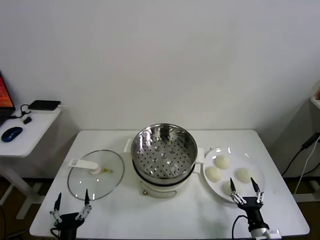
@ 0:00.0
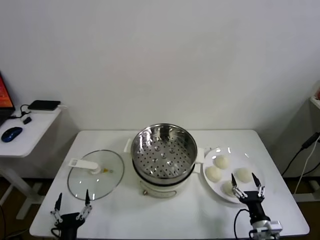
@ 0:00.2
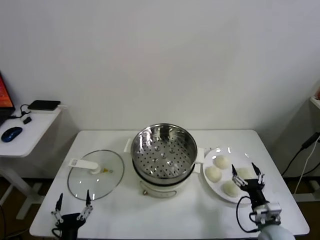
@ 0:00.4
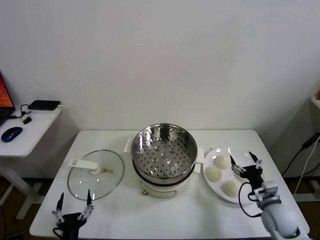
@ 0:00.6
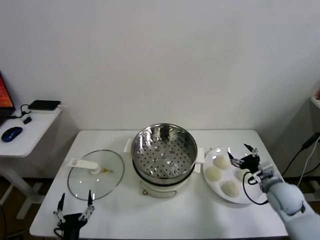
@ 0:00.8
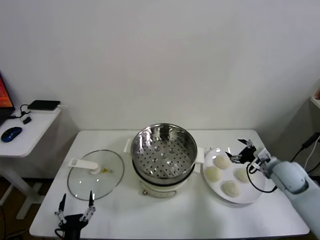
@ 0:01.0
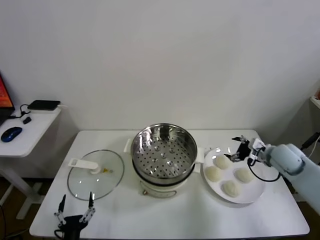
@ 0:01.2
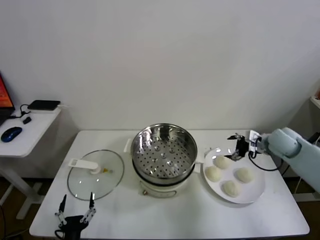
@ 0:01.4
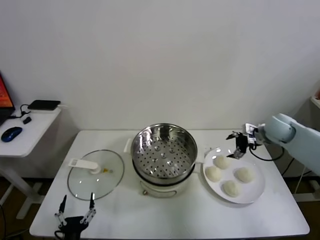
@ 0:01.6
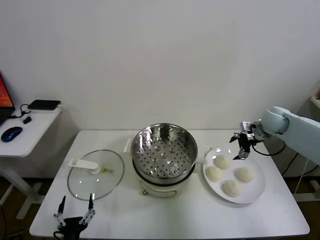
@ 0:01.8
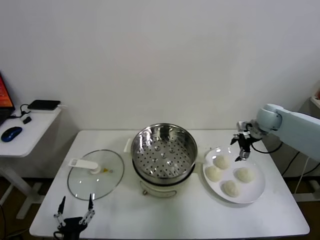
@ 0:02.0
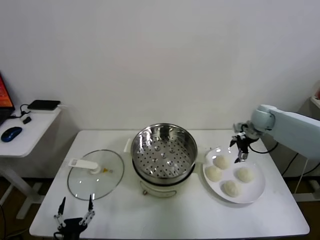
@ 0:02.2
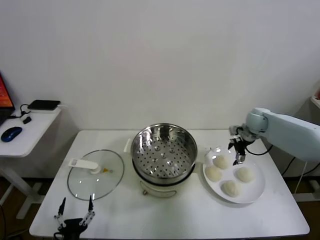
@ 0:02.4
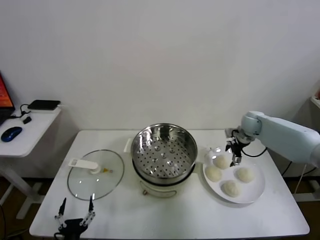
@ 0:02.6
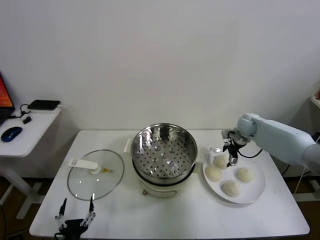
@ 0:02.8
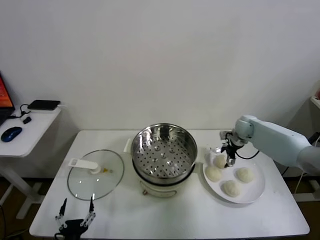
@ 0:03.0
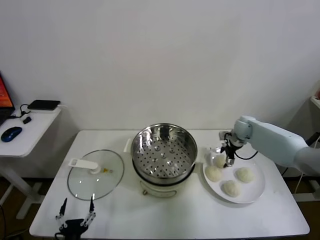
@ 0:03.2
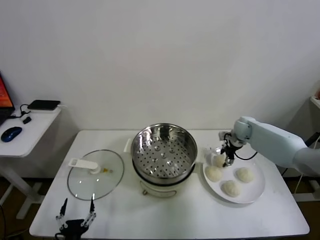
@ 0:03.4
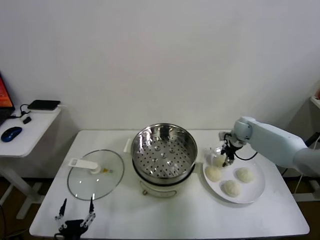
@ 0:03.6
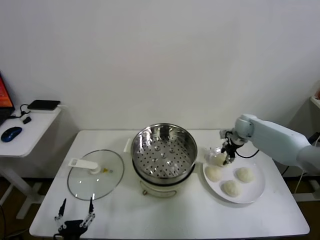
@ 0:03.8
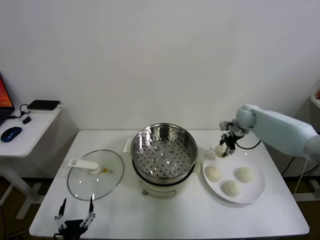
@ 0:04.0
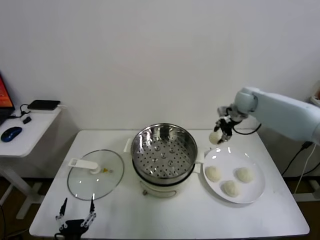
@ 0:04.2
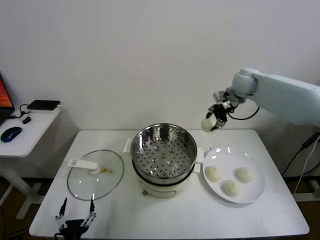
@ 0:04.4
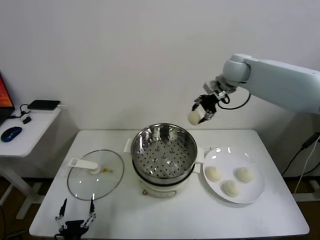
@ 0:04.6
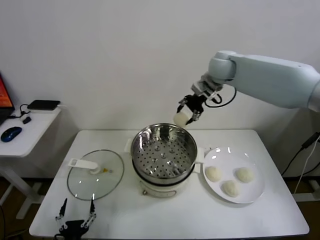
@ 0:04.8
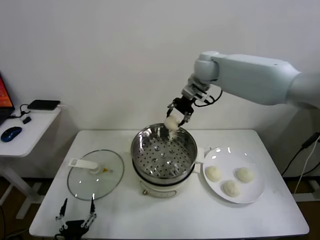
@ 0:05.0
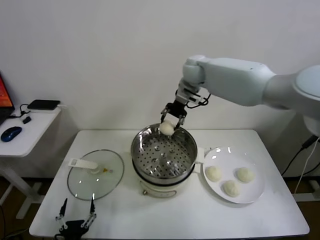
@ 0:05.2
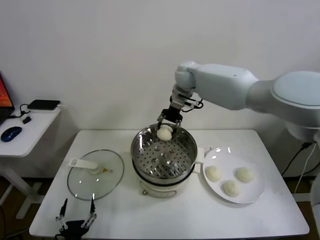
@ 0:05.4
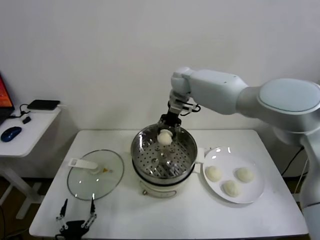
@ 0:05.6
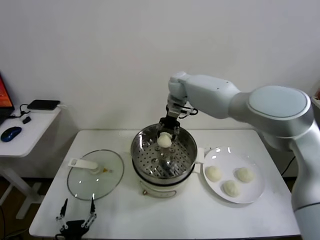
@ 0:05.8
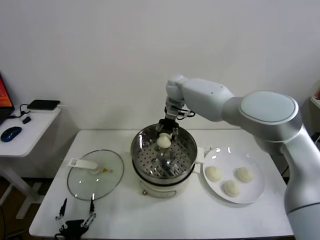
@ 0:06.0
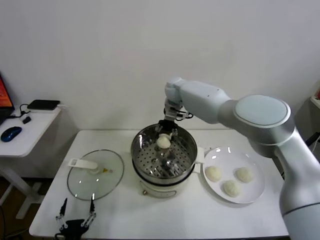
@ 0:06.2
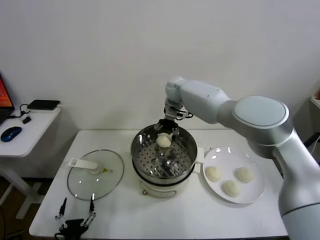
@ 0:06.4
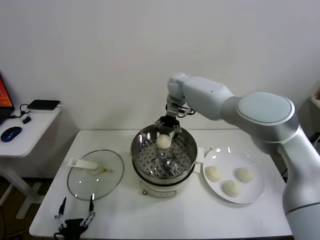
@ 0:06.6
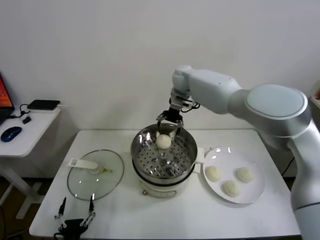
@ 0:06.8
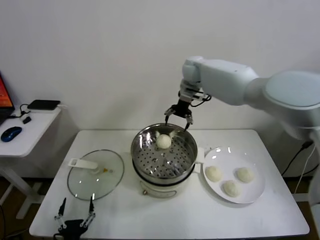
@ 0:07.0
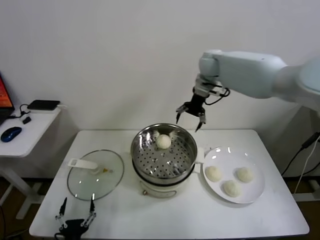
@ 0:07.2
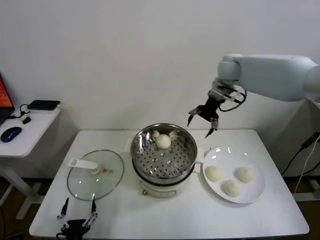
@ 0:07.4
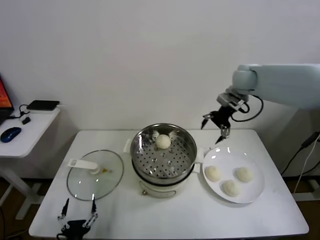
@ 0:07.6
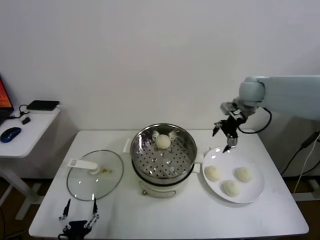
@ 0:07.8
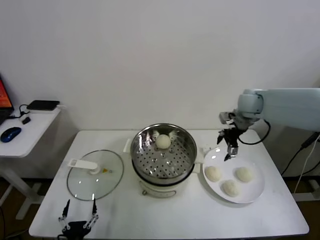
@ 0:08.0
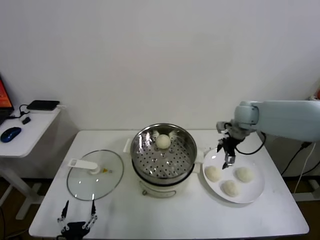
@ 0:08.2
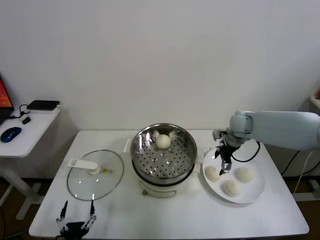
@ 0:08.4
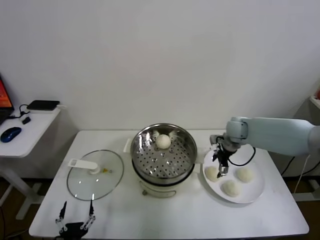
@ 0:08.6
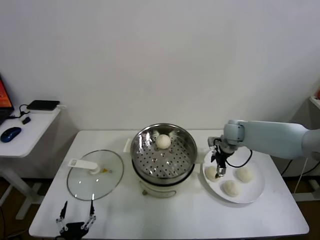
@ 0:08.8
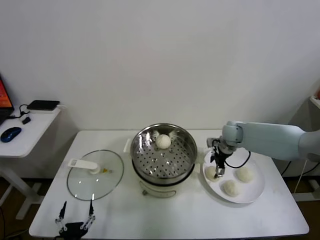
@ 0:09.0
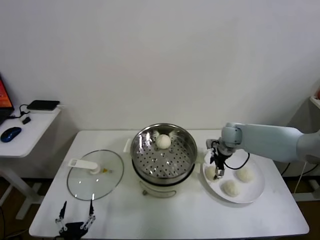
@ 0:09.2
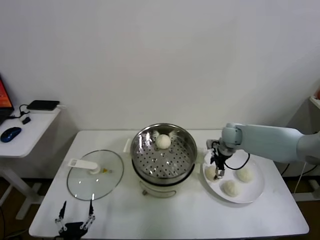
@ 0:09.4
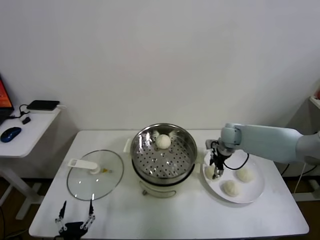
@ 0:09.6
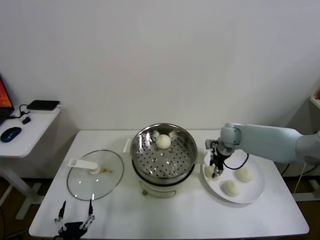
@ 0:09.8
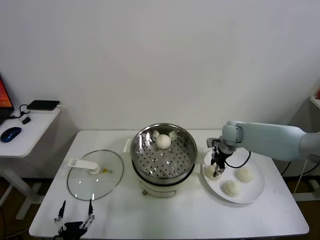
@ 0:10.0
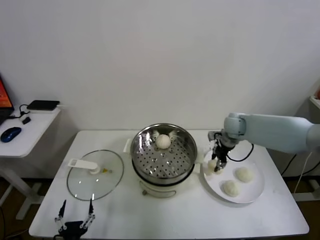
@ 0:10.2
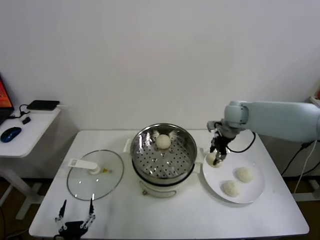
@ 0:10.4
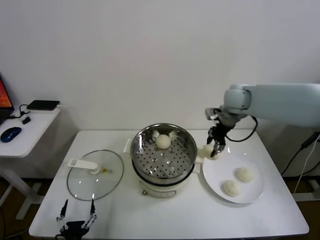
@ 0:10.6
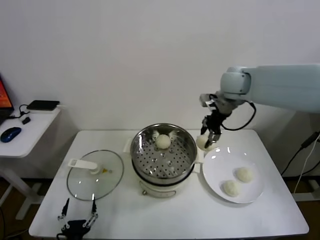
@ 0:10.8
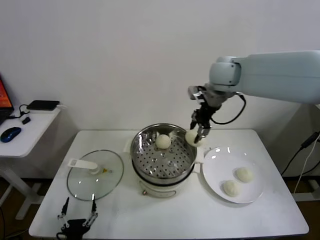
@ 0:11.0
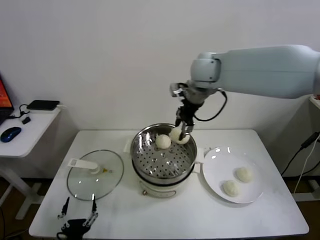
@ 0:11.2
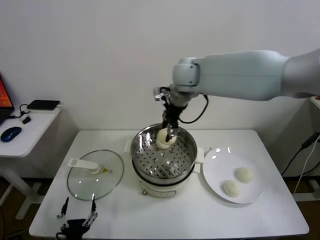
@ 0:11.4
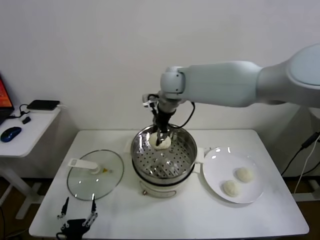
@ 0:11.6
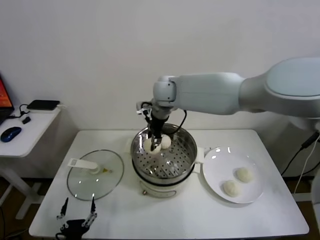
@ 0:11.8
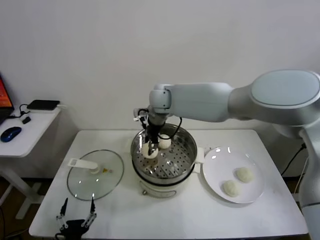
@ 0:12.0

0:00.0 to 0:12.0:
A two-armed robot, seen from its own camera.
Task of the whole recording: take steamed baozi put them in steamer.
Step, 0:00.0 to 0:03.6: Grasp the baozi in the plate with right gripper.
Step, 0:03.8 to 0:06.6: Place the baozi on the steamer with right gripper.
Step, 0:06.8 to 0:09.8: Grasp the baozi in the plate with right gripper.
0:01.6 to 0:03.0: The right gripper goes approximately 15 cm downward, forward and to the left.
0:03.0 to 0:04.4: The right gripper is displaced upward by some 25 cm, and closes.
0:04.4 to 0:06.0: The right gripper is displaced to the left and downward by some 20 cm.
0:06.0 to 0:07.6: The right gripper travels to the right by some 25 cm, and opens its fingers.
0:07.6 to 0:09.0: The right gripper goes about 20 cm downward.
0:09.0 to 0:10.4: The right gripper is displaced upward by about 10 cm, and closes up.
0:10.4 to 0:12.0: The right gripper goes approximately 25 cm to the left.

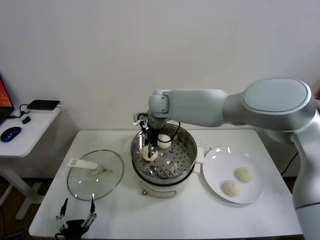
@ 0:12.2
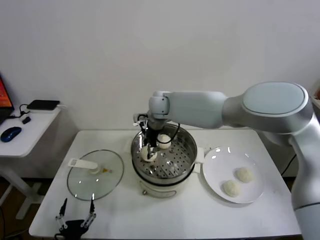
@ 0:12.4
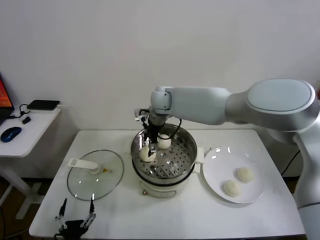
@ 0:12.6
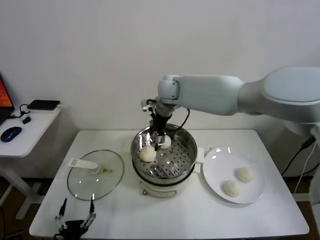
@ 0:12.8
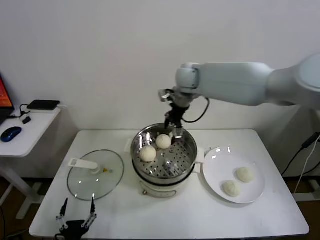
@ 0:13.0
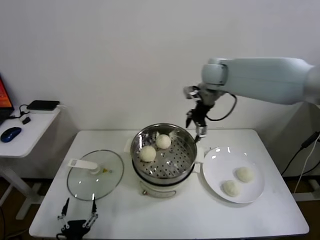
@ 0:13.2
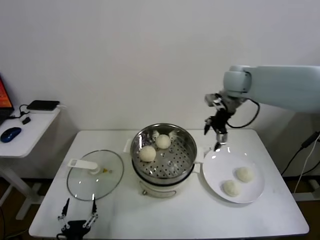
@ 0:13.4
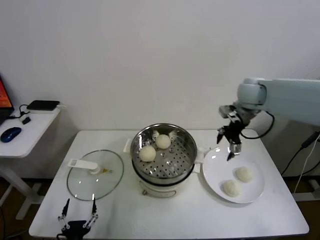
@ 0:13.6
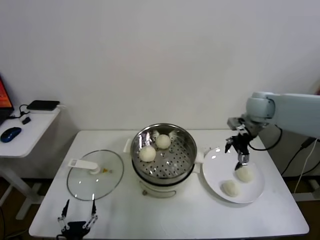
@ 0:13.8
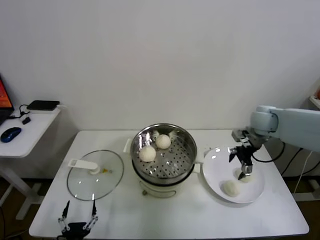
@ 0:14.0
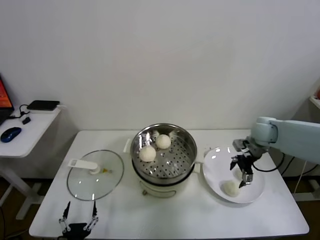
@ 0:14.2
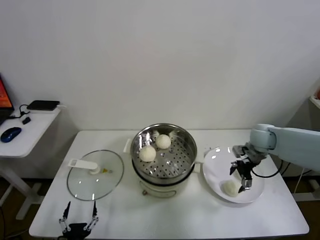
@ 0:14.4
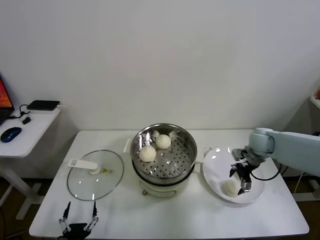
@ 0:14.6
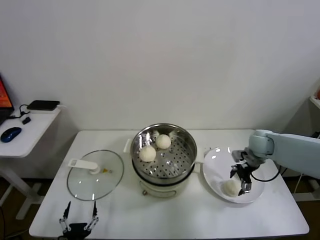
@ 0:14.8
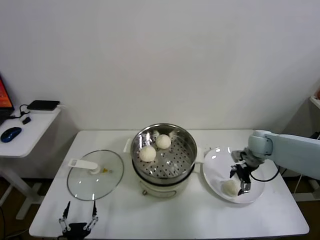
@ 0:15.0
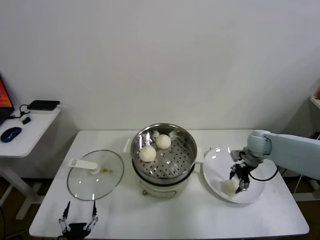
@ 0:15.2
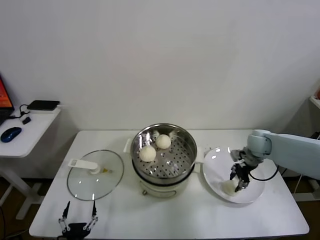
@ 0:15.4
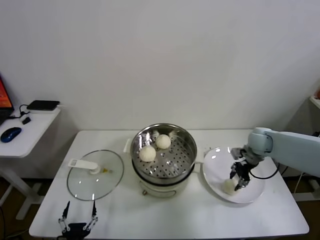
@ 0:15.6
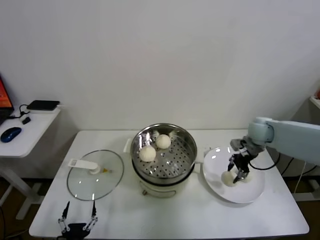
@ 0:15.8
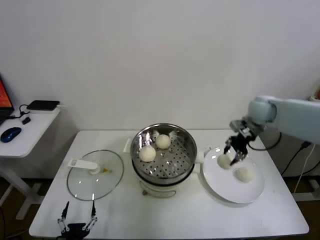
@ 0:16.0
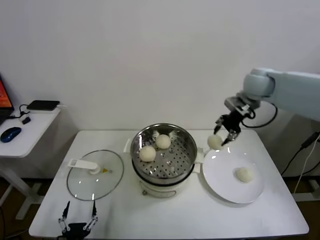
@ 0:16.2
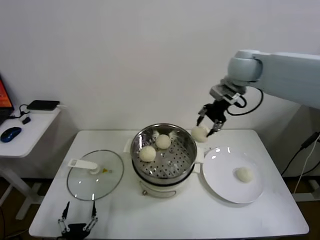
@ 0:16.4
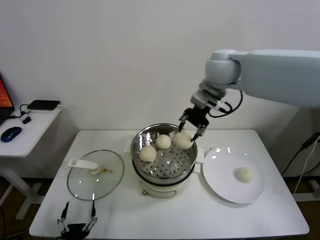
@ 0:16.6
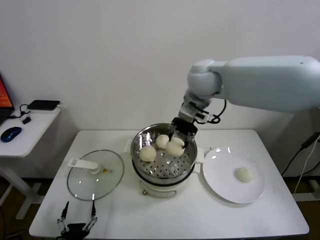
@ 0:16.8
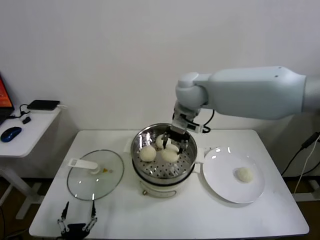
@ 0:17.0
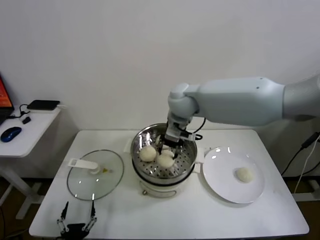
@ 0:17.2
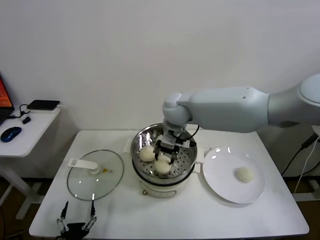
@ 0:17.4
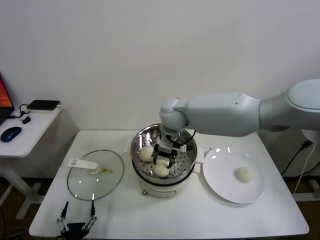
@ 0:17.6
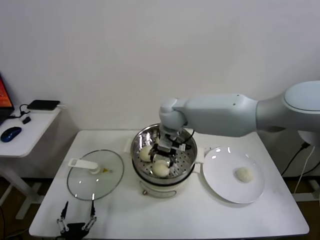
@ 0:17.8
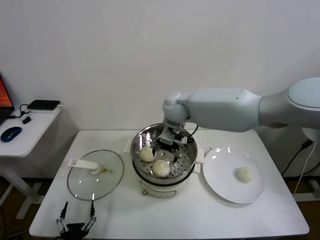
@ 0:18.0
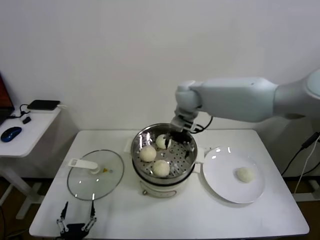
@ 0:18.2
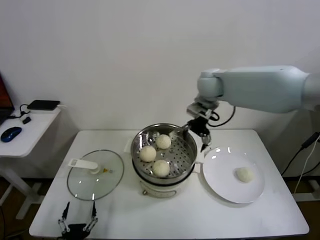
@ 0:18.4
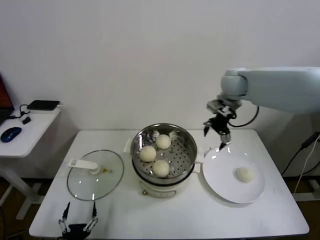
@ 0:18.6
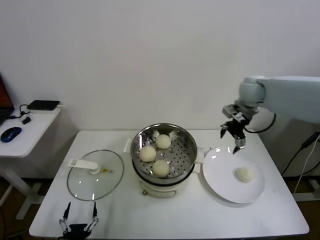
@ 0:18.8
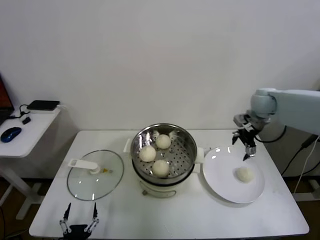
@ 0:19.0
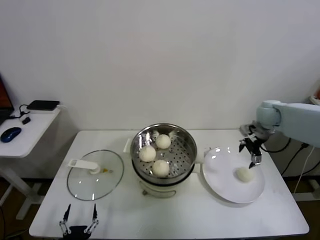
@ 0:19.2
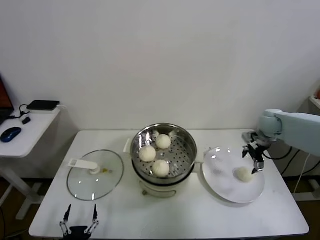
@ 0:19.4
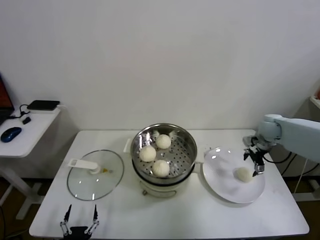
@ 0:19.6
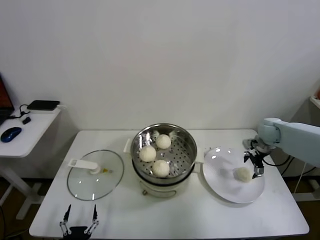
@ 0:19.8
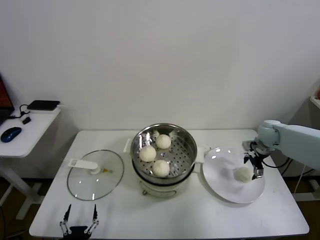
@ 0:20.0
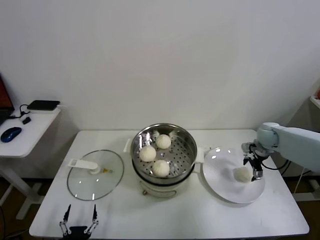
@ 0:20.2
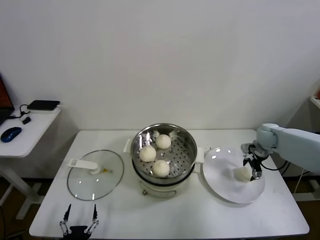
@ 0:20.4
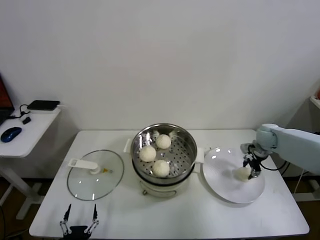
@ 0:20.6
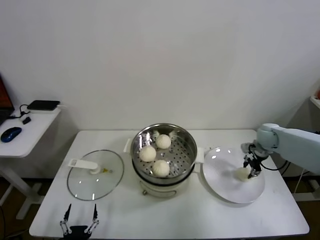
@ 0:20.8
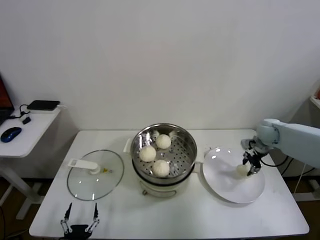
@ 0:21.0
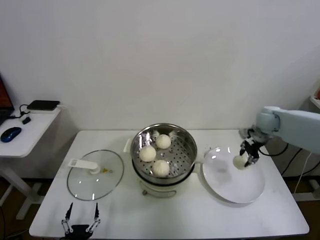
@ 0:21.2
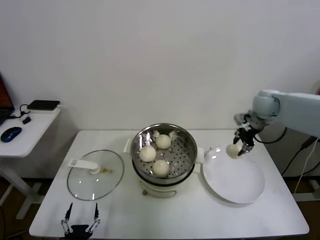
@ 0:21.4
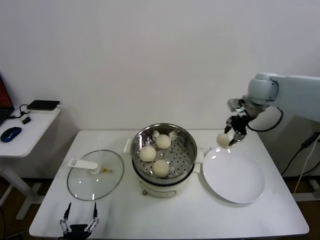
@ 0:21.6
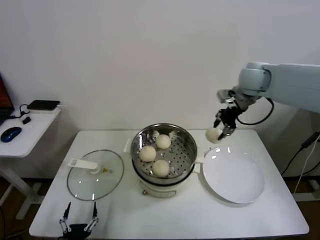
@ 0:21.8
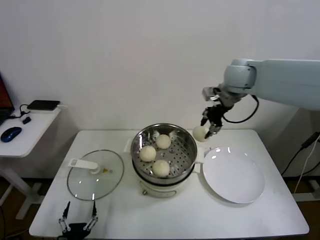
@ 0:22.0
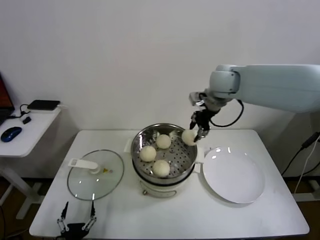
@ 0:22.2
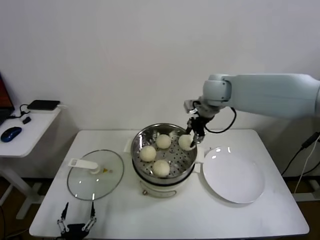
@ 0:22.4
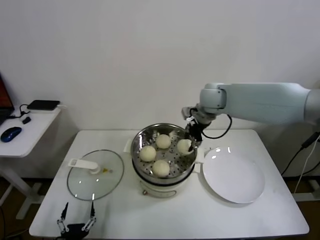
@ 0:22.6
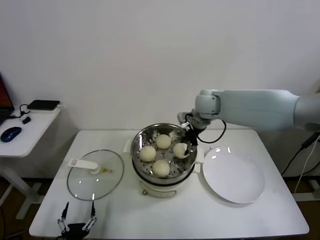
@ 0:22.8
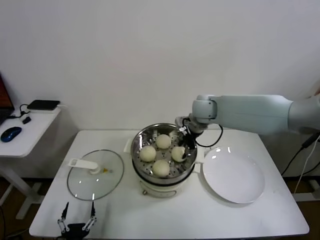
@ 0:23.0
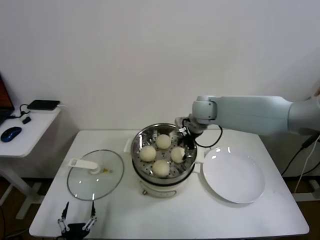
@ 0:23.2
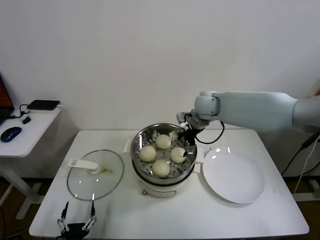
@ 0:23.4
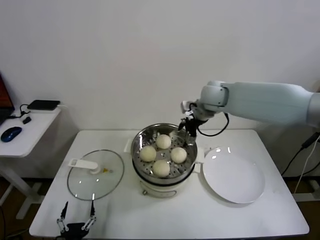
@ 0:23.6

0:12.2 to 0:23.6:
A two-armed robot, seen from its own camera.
Task of the whole recording: take steamed baozi put them in steamer.
Step, 0:12.8 to 0:15.2: Grasp the baozi in the plate with right gripper.
Step, 0:15.4 to 0:18.0: Place the baozi on the steamer with right gripper.
Step, 0:18.2 to 0:20.6: Grasp the baozi in the plate with right gripper.
Step, 0:21.0 to 0:23.2: Place the baozi on the steamer with right gripper.
0:12.2 to 0:13.6: The right gripper is displaced to the right by approximately 30 cm, and opens its fingers.
0:13.6 to 0:15.0: The right gripper is displaced downward by approximately 20 cm.
0:15.0 to 0:16.4: The right gripper travels upward and to the left by approximately 30 cm, and closes.
0:16.4 to 0:17.8: The right gripper shifts some 25 cm to the left and downward, and opens its fingers.
0:17.8 to 0:19.4: The right gripper travels to the right by about 35 cm, and opens.
0:19.4 to 0:20.8: The right gripper shifts about 5 cm downward, and closes its fingers.
0:20.8 to 0:22.2: The right gripper heads upward and to the left, covering roughly 35 cm.
0:22.2 to 0:23.6: The right gripper shifts some 5 cm downward, and opens.
